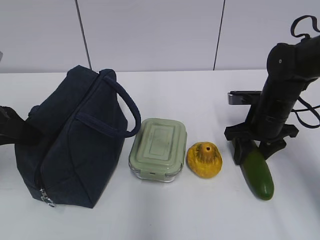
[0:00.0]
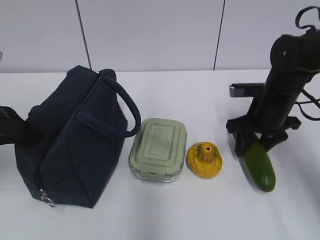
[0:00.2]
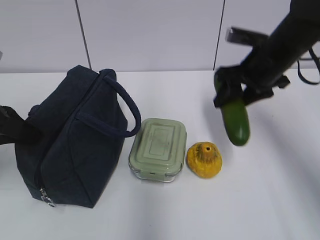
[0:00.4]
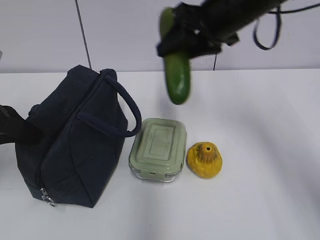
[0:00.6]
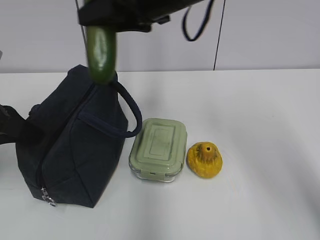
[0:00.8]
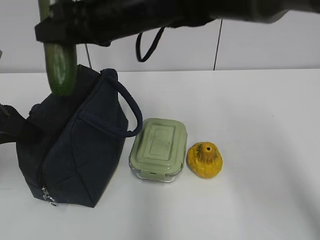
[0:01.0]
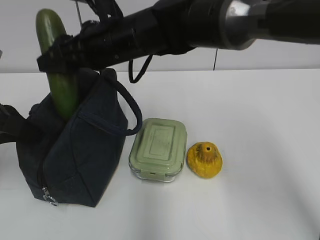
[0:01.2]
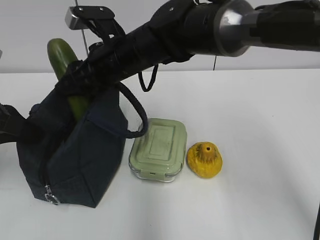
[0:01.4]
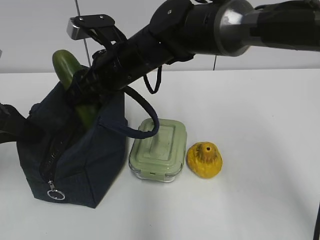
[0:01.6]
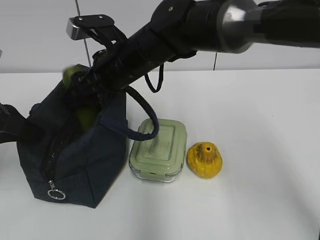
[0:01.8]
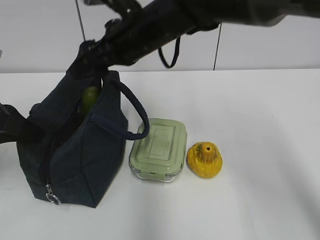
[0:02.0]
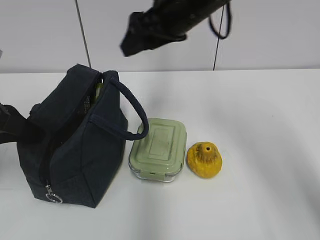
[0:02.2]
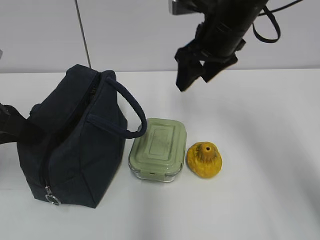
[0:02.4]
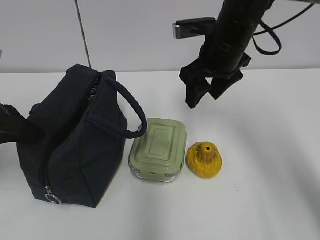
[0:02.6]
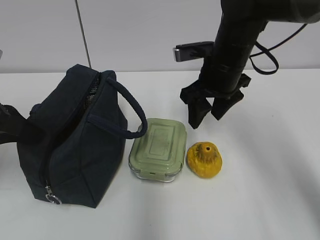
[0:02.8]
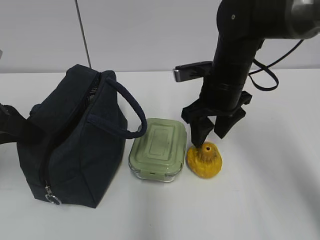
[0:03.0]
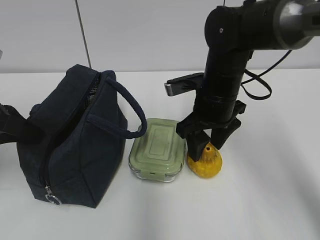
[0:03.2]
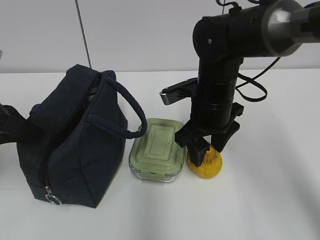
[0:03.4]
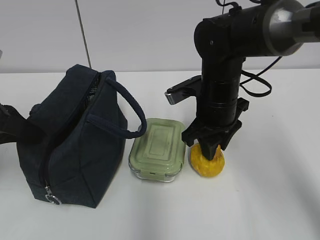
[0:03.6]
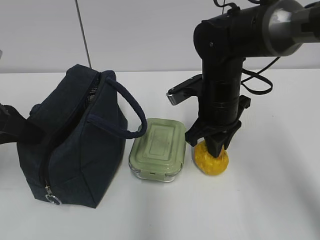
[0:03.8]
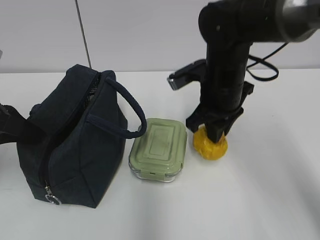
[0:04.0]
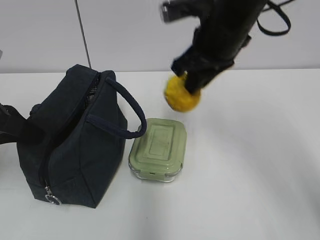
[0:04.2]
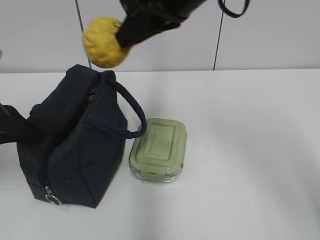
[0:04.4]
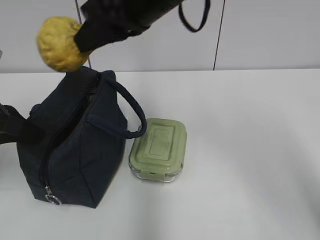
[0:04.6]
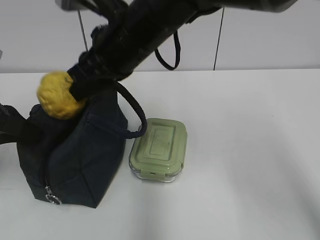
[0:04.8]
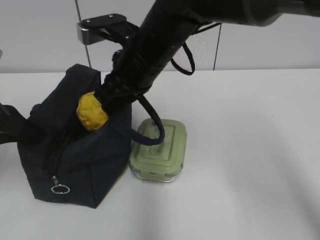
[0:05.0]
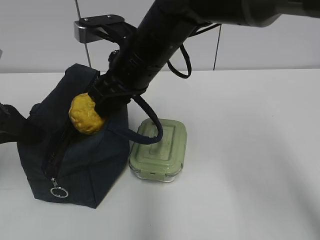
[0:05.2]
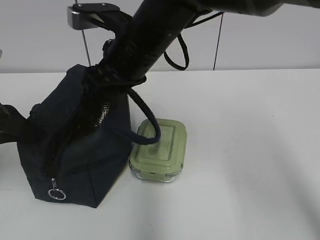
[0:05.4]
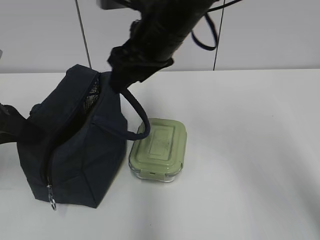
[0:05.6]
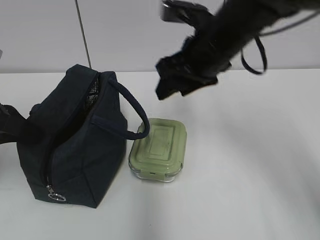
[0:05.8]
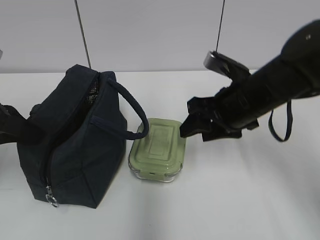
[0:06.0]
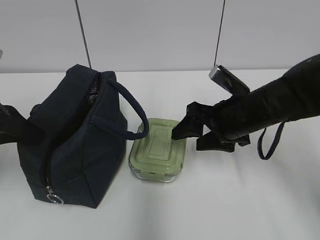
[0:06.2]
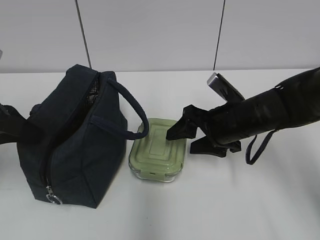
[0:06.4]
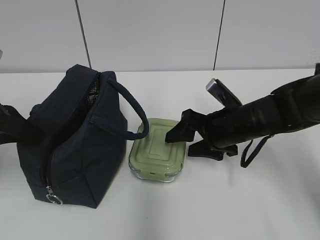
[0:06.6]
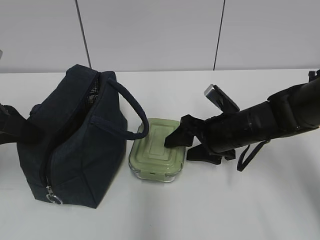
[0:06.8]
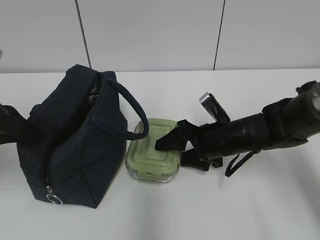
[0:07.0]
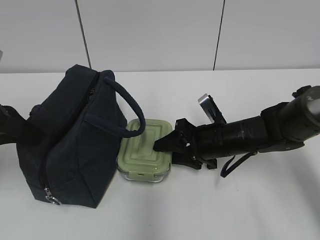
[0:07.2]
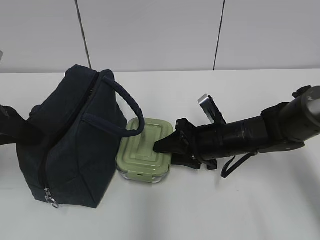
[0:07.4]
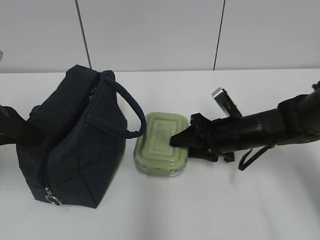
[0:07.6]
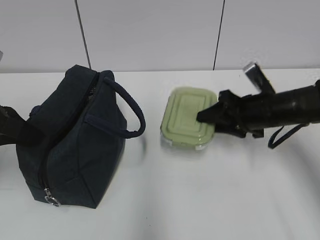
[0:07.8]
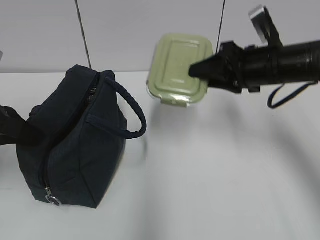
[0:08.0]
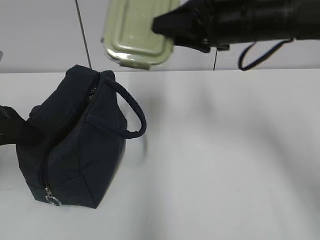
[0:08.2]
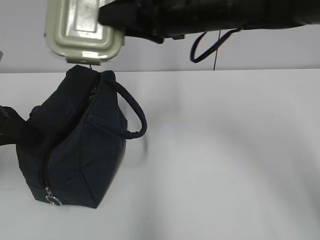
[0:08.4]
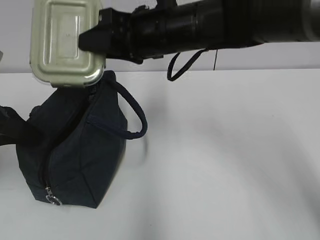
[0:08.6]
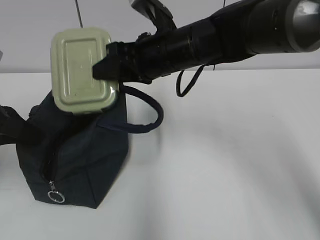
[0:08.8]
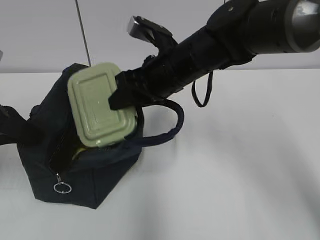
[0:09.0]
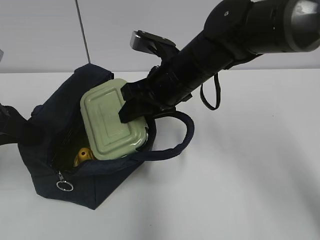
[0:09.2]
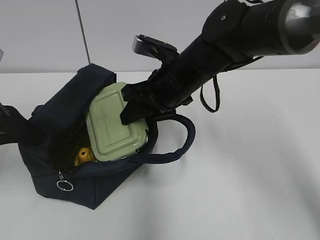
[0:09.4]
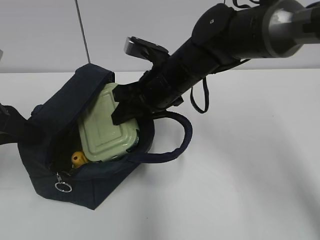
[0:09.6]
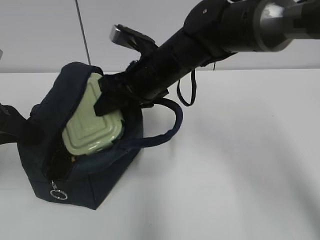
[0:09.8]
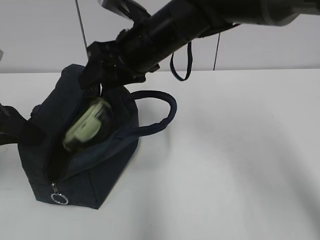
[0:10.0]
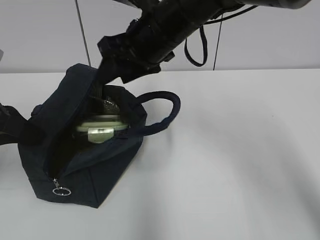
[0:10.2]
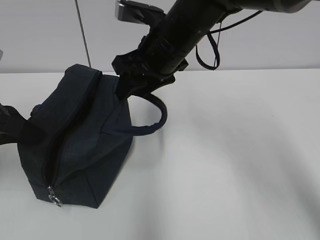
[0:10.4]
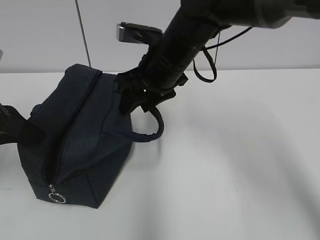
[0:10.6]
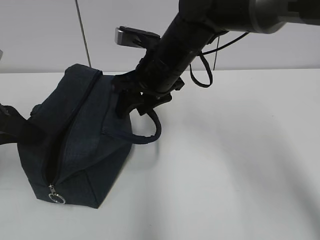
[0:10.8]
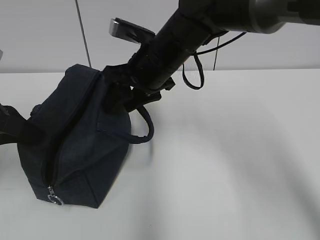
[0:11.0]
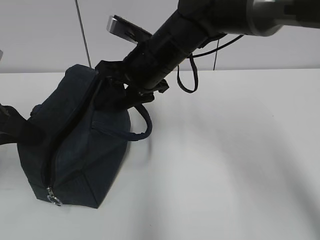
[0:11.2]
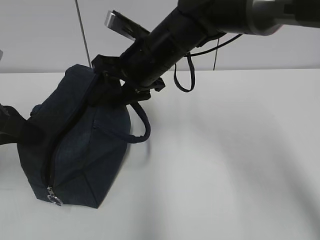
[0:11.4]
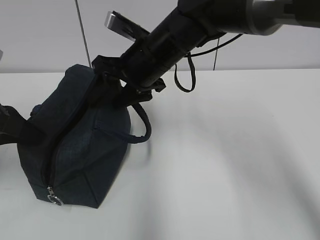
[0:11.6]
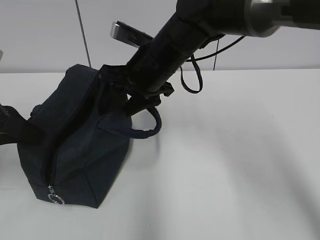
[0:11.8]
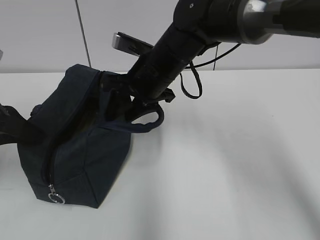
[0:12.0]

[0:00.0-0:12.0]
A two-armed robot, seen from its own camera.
0:00.0 to 0:01.6: The right gripper moves to the left and upward, about 25 cm.
0:01.6 to 0:03.0: The right gripper goes roughly 15 cm to the right.
0:03.0 to 0:04.4: The right gripper moves upward and to the left, some 20 cm, and closes up.
0:04.4 to 0:06.0: The right gripper moves up and down over approximately 20 cm, changing direction 2 times, and opens.
0:06.0 to 0:07.6: The right gripper moves downward, approximately 10 cm.
0:07.6 to 0:09.0: The right gripper heads to the left and upward, covering some 20 cm.
0:10.4 to 0:12.0: The grippers move only a little.

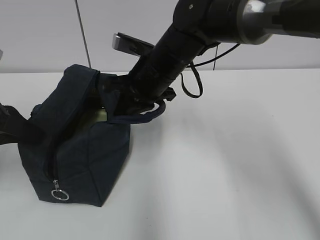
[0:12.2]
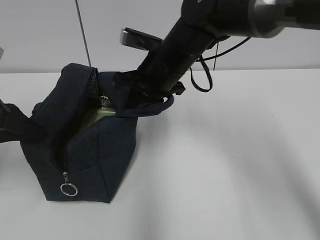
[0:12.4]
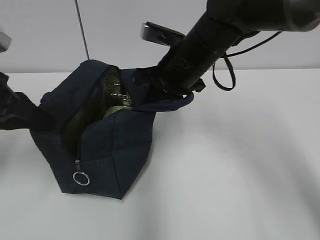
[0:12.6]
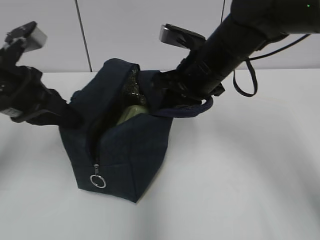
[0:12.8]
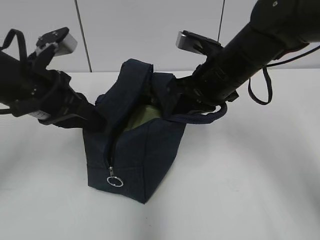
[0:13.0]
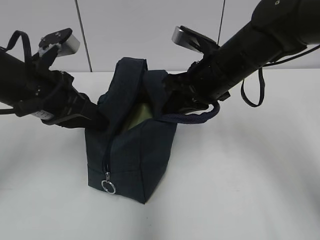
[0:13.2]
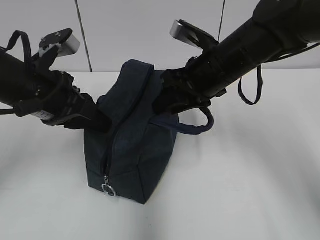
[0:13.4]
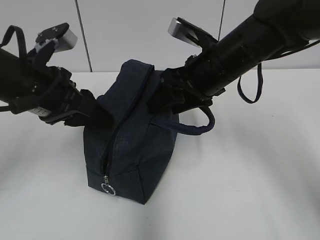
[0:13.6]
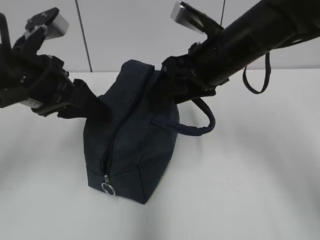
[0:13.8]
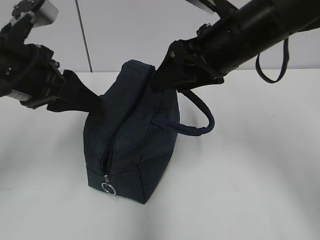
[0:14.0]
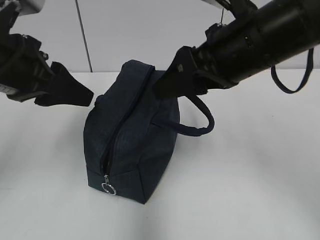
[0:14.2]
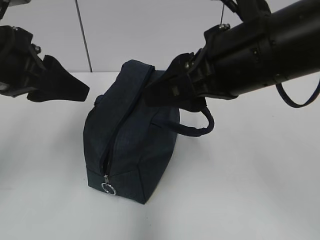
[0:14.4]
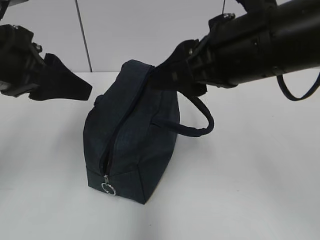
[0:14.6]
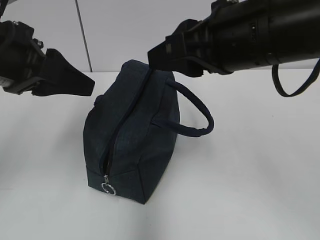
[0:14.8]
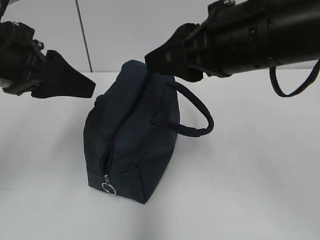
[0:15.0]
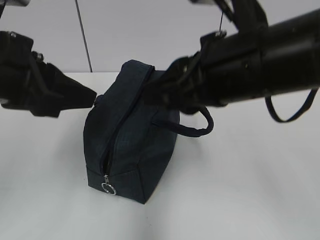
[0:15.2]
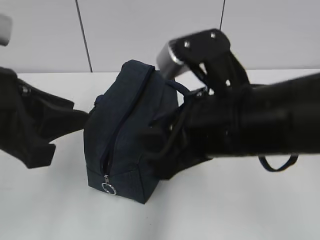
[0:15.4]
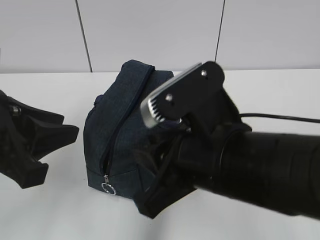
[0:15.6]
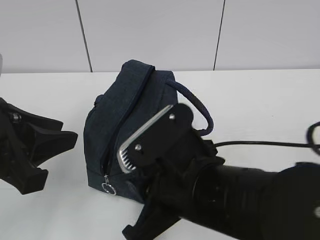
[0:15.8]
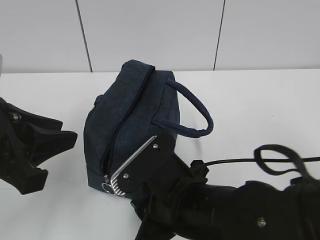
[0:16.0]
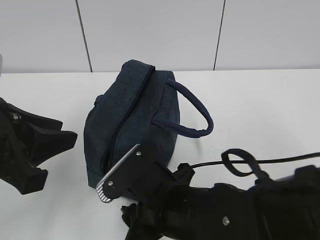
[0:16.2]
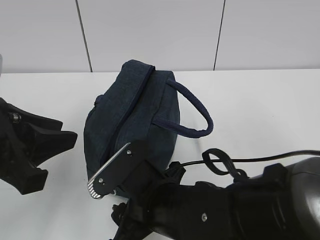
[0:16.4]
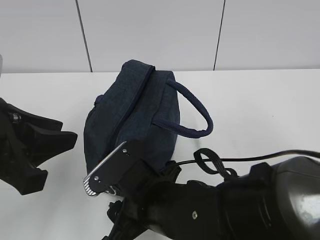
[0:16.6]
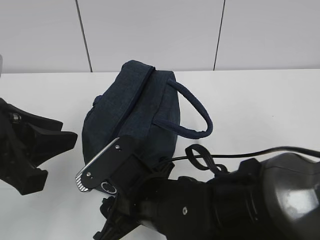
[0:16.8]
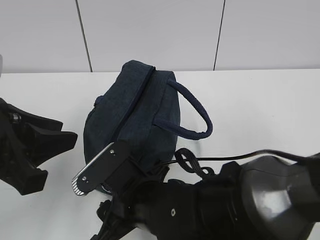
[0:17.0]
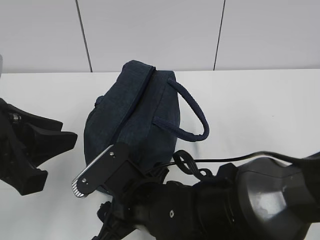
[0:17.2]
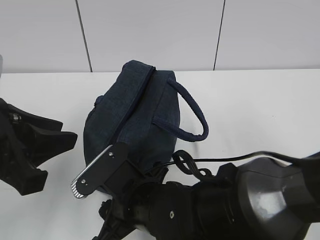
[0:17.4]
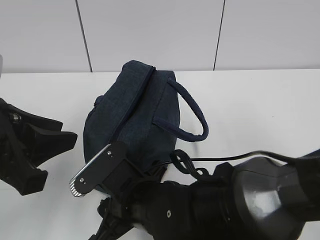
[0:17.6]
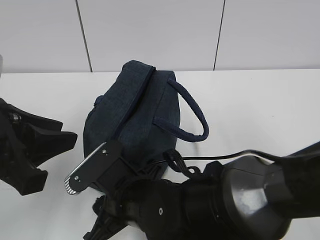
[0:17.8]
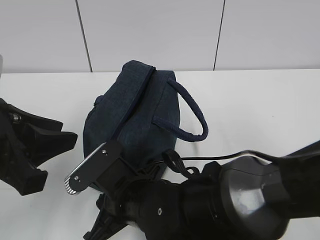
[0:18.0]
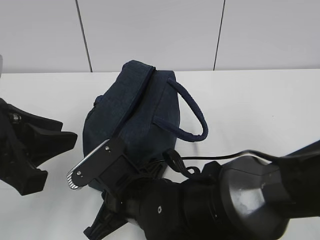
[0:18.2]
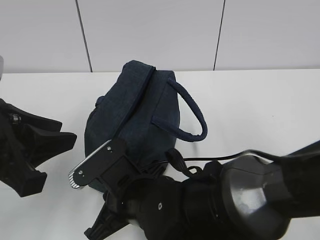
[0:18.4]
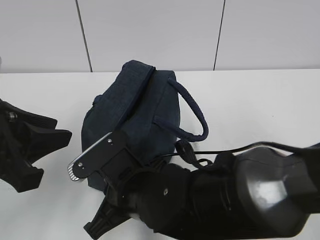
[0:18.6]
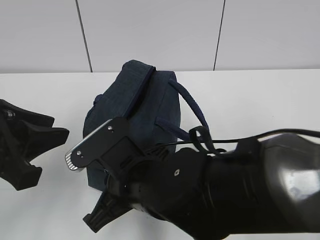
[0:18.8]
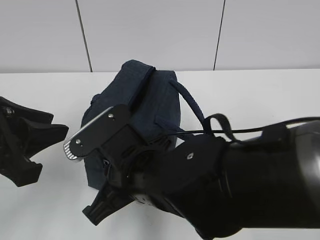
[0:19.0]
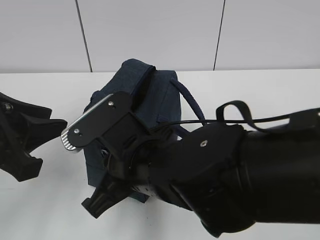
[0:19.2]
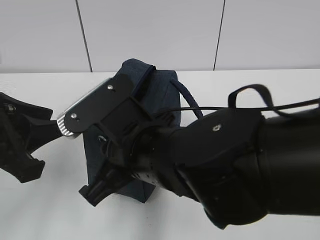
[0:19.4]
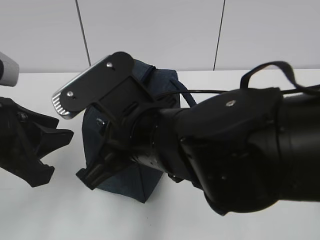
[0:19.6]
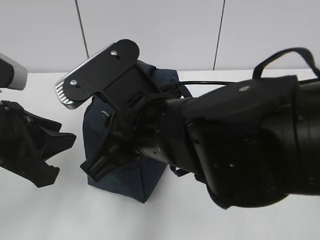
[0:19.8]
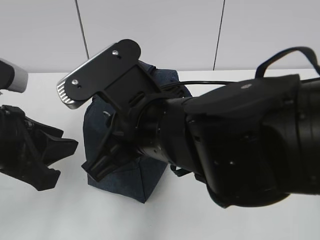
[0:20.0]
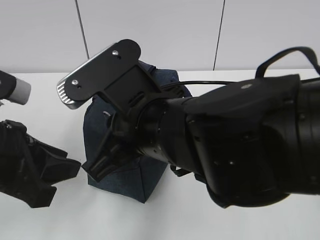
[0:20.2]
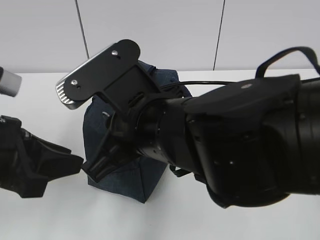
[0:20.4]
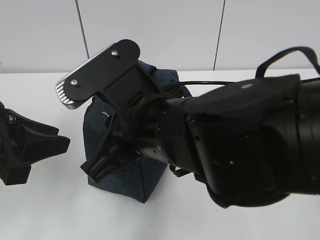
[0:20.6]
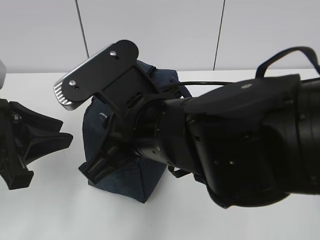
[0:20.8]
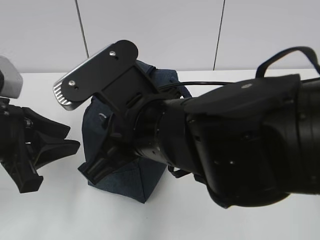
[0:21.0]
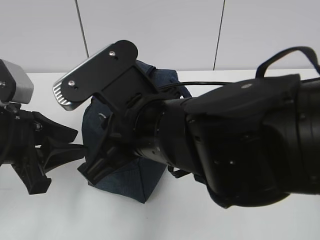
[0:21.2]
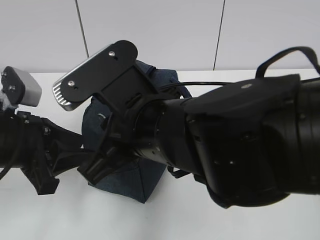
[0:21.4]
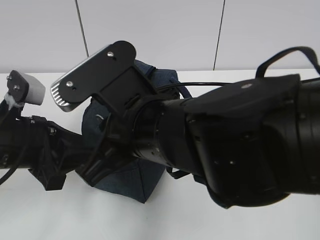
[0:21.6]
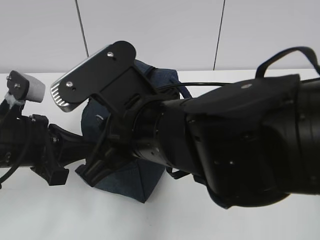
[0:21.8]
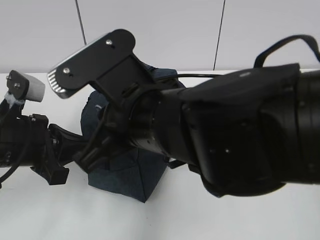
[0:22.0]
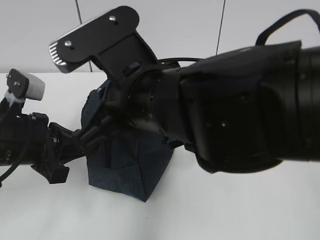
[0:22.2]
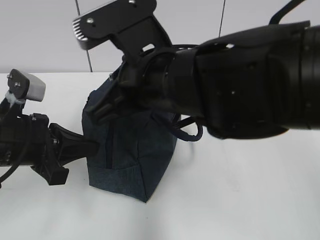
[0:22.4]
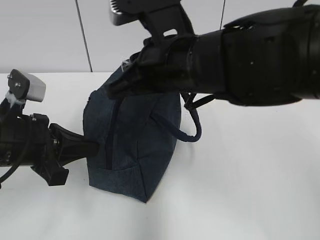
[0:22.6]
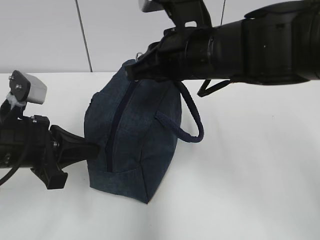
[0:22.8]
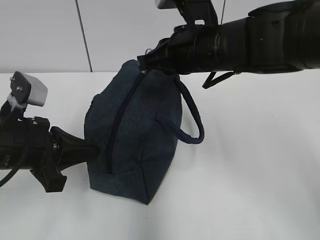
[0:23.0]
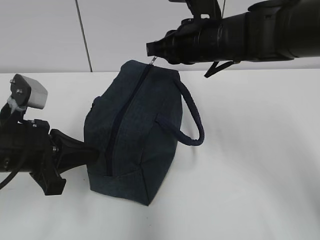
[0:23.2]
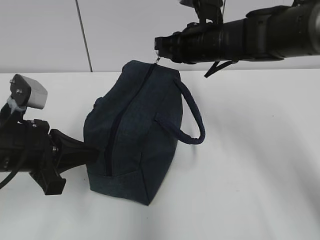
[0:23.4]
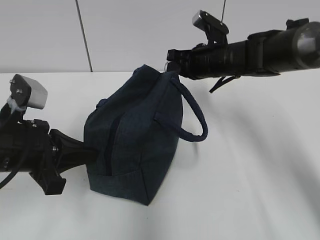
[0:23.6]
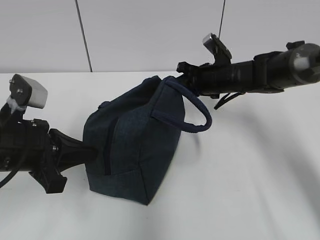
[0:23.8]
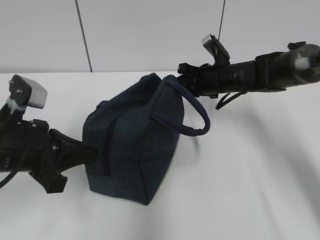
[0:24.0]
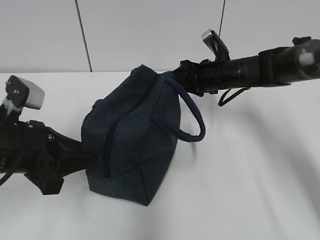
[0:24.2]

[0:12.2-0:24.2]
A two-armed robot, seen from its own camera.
0:12.2 to 0:13.8: The right gripper moves to the right and upward, roughly 10 cm, and opens, while the left gripper goes roughly 10 cm to the right, and opens.
0:13.8 to 0:15.2: The right gripper moves backward, approximately 10 cm, and closes. The left gripper goes some 5 cm backward.
0:15.2 to 0:16.6: The right gripper travels downward and to the left by approximately 20 cm, while the left gripper ends up roughly 5 cm from where it was.
0:16.6 to 0:18.2: The right gripper closes.
0:18.2 to 0:19.8: The right gripper shifts approximately 15 cm upward.
0:19.8 to 0:21.2: There are only small adjustments of the grippers.
0:21.2 to 0:22.6: The left gripper closes up. Meanwhile the right gripper travels forward by approximately 5 cm.
0:22.6 to 0:24.2: The left gripper opens; the right gripper goes approximately 25 cm forward, downward and to the right, and opens its fingers.
